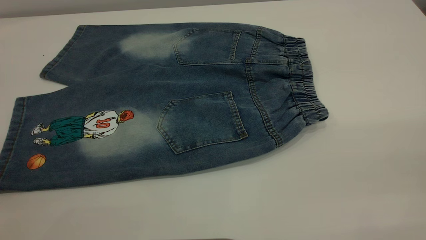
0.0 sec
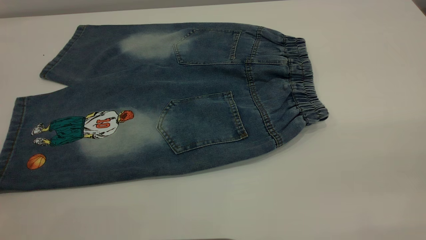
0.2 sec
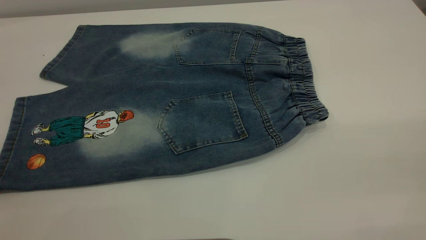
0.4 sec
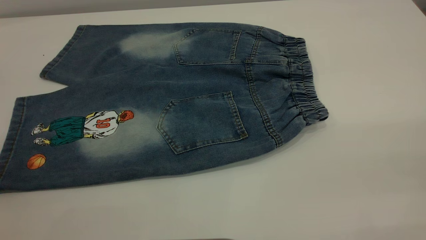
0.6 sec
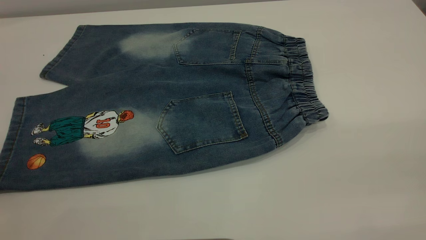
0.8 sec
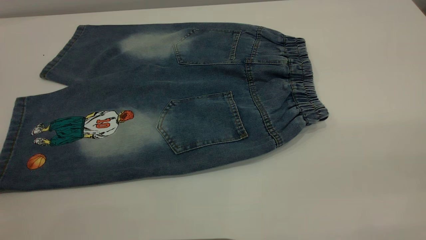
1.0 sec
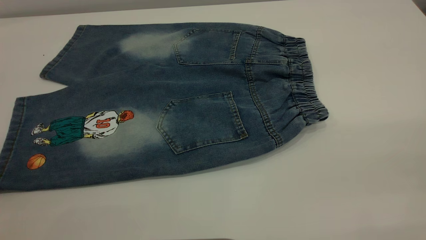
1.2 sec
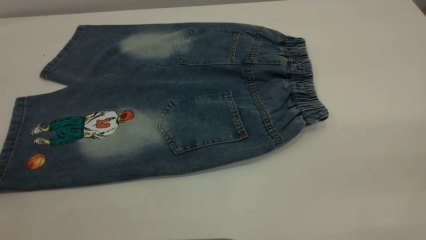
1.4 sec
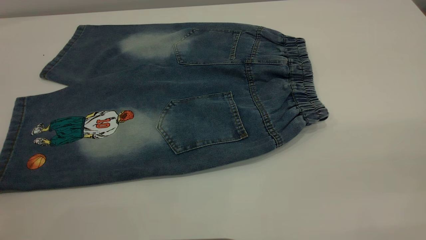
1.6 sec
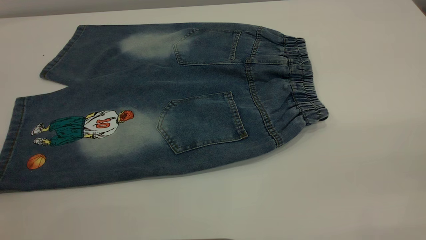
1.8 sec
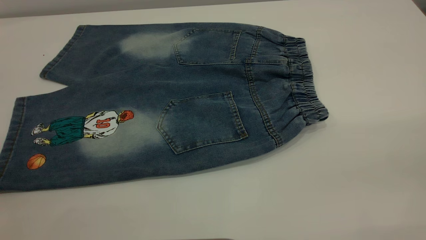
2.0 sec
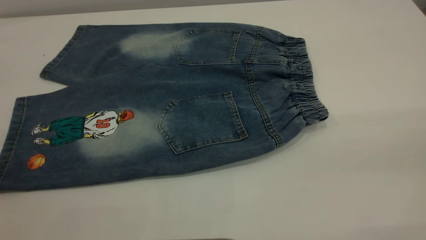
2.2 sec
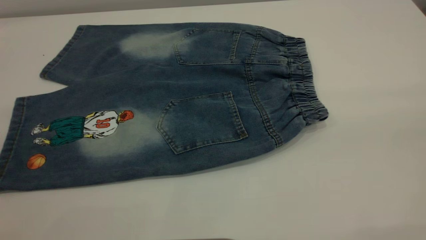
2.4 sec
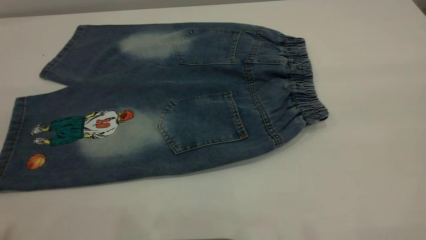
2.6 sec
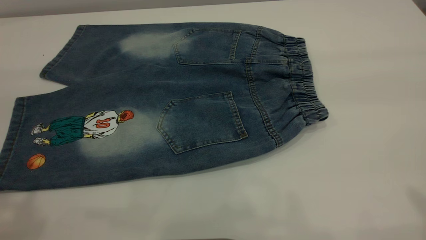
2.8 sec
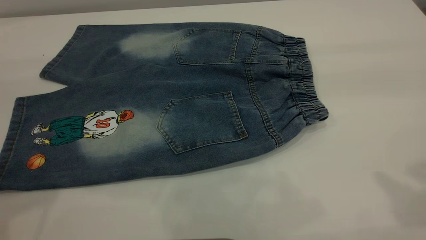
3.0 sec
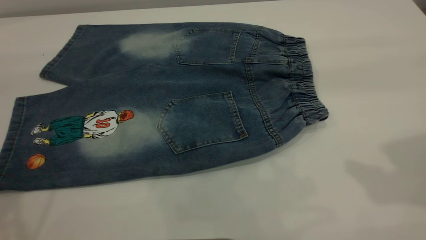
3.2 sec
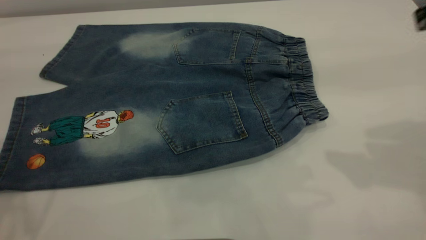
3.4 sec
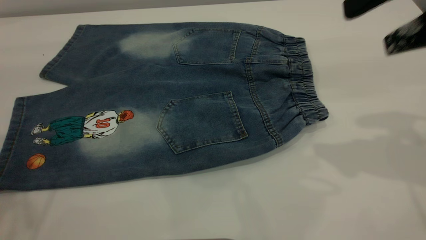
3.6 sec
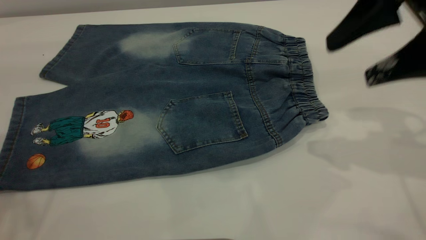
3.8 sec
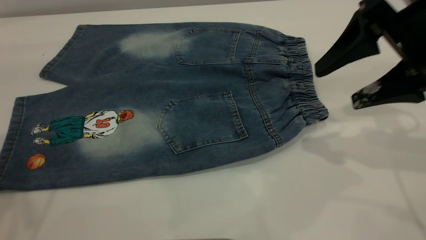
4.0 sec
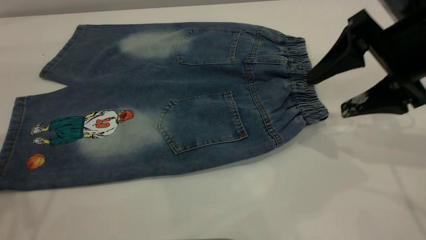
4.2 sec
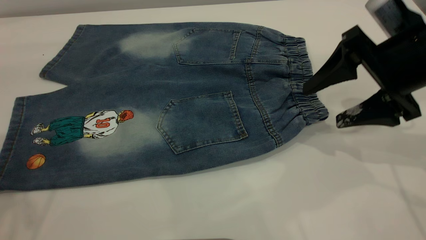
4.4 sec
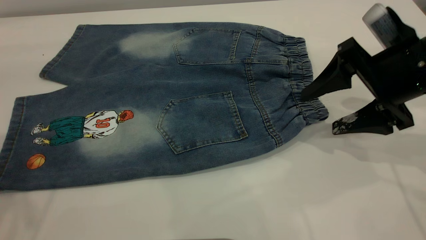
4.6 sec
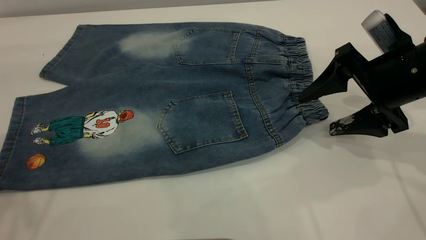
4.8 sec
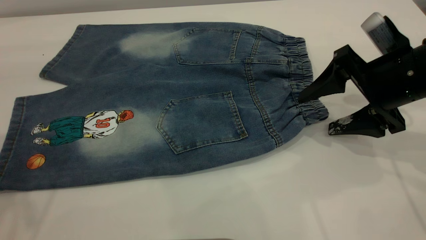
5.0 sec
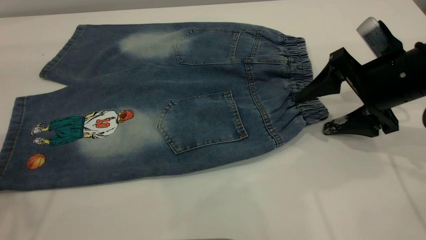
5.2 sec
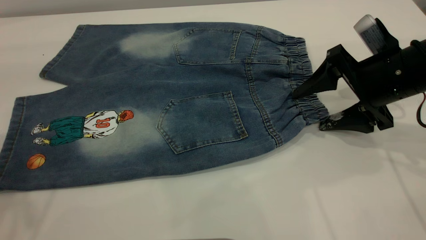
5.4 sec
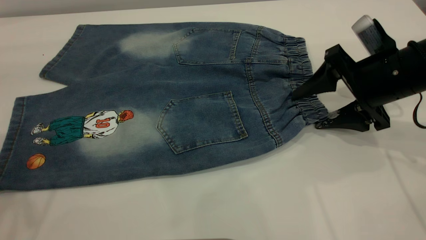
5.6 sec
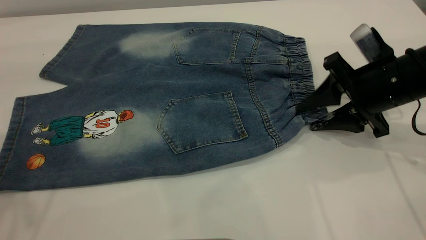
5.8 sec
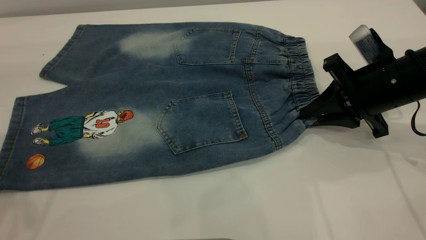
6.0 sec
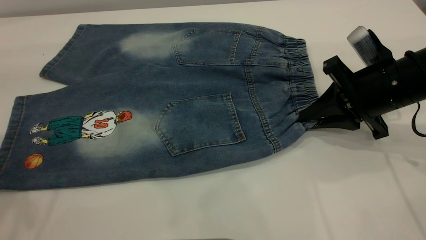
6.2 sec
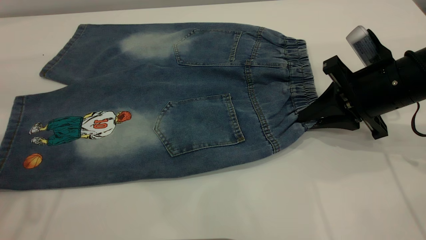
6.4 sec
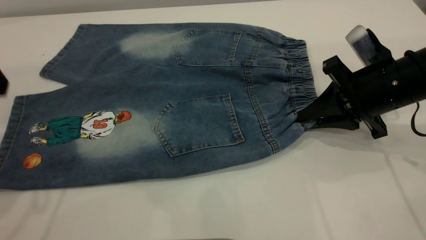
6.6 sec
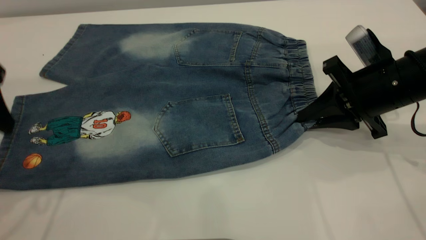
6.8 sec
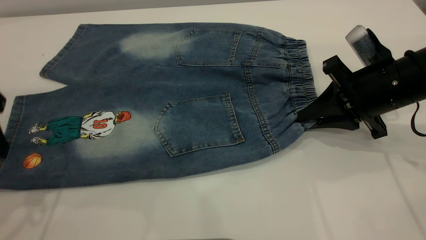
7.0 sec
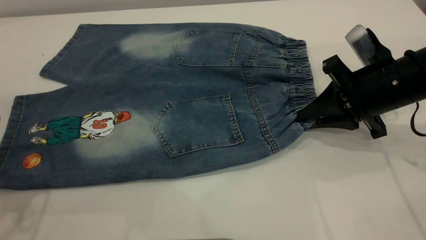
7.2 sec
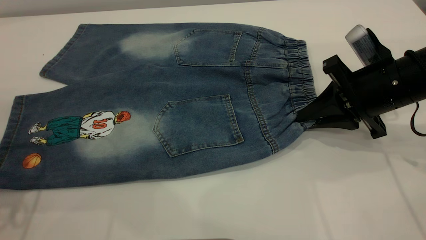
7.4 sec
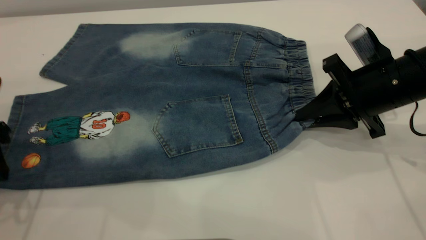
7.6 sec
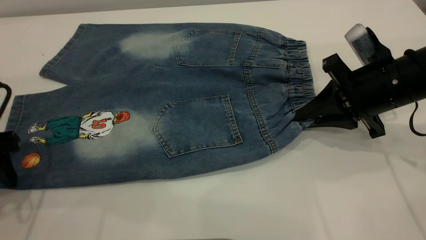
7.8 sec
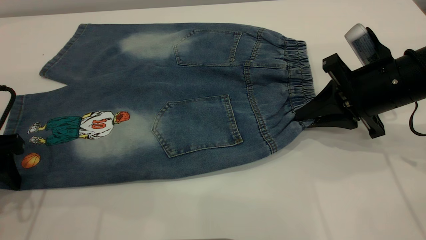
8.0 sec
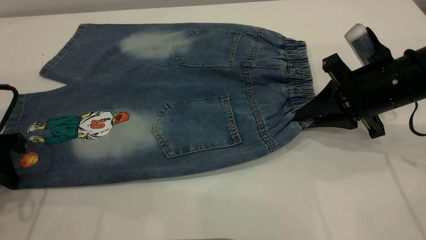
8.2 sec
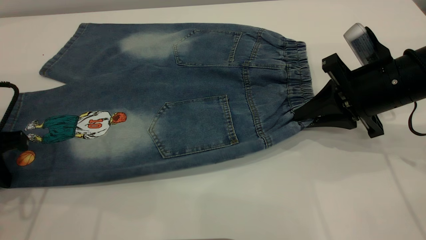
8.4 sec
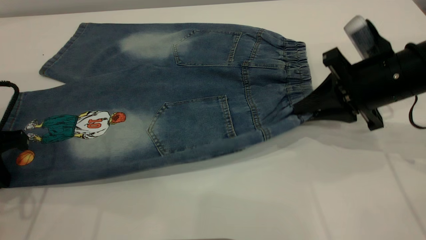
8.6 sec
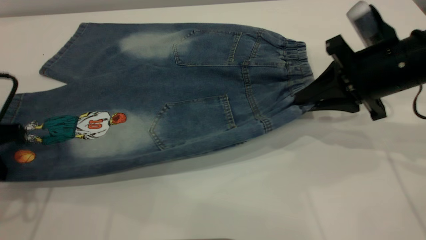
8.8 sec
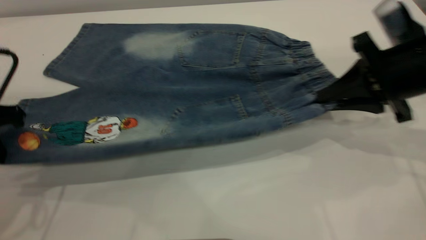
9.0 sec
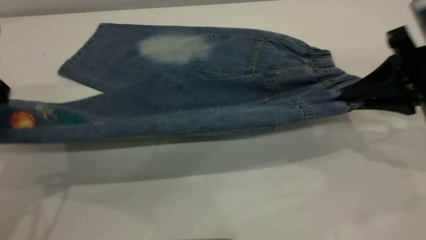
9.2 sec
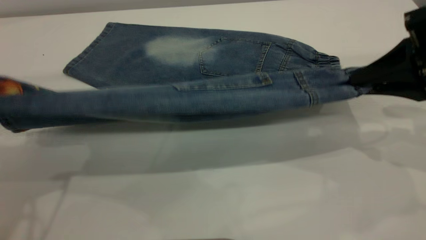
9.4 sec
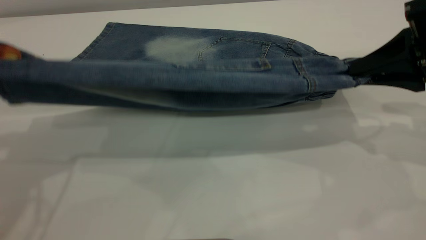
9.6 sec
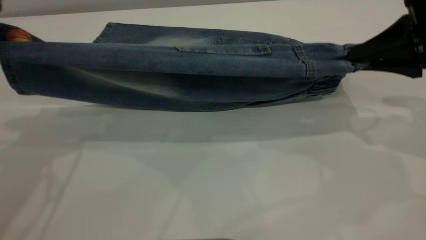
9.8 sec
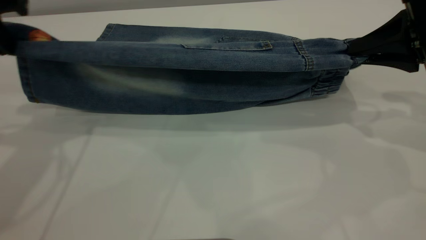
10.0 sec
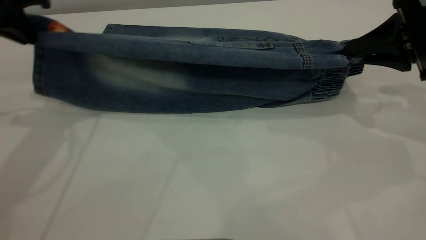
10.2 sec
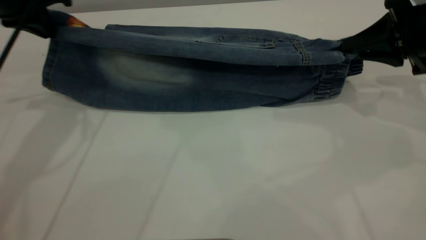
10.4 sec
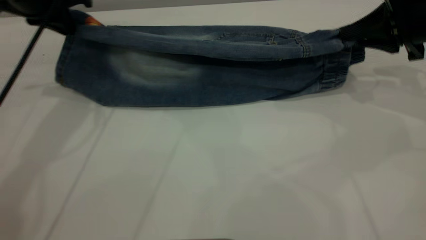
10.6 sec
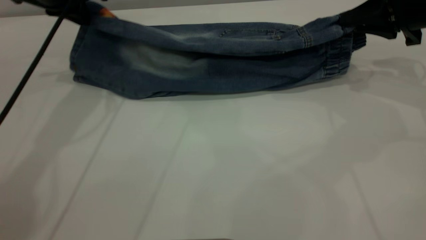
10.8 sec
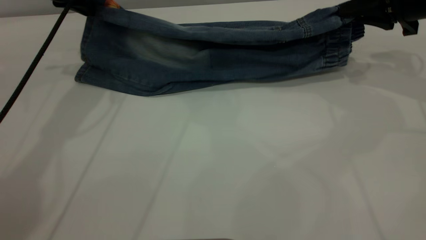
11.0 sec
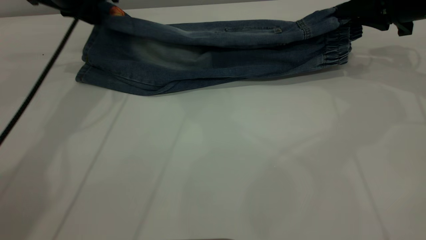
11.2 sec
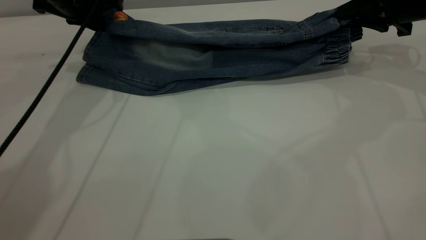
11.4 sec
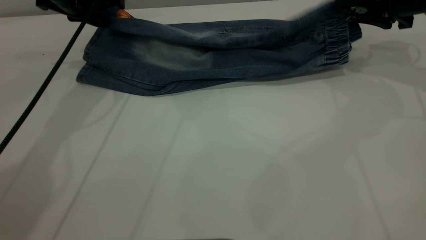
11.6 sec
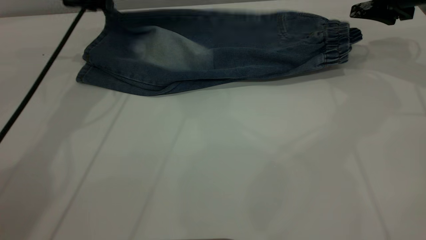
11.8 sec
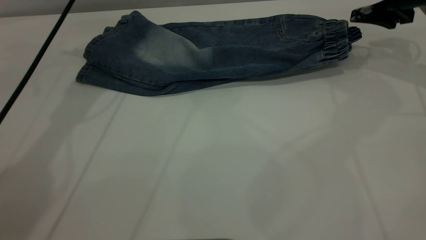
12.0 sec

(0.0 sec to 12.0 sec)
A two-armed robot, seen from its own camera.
Step, 0.0 sec - 11.8 sec: Fold the bottom of the pants upward.
0.0 sec - 1.6 sec: Both grippers stay about where they are.
3.0 sec - 4.4 sec: The right gripper goes about 25 cm downward and forward, while the left gripper is displaced forward by approximately 5 cm.
4.4 sec - 6.0 sec: The right gripper travels downward by approximately 5 cm, and closes its fingers.
6.0 sec - 7.6 sec: The left gripper is displaced downward by roughly 20 cm.
7.6 sec - 9.0 sec: The right gripper changes place by some 5 cm, while the left gripper closes up.
9.0 sec - 10.4 sec: The left gripper goes some 15 cm forward. The right gripper ends up about 5 cm from where it was.
10.4 sec - 12.0 sec: The grippers both shift forward by about 10 cm. The left gripper opens up. Meanwhile the right gripper opens.

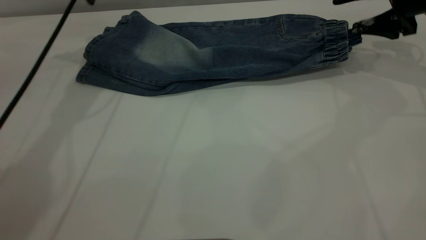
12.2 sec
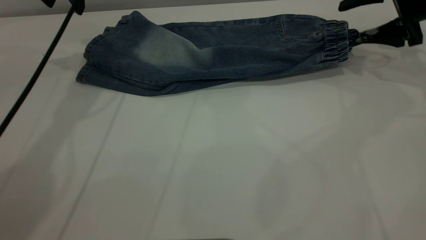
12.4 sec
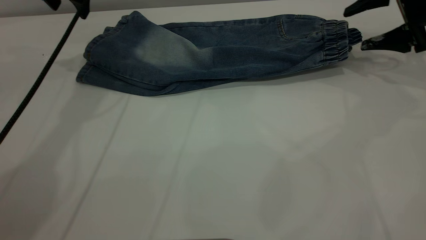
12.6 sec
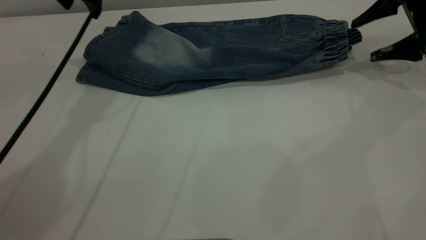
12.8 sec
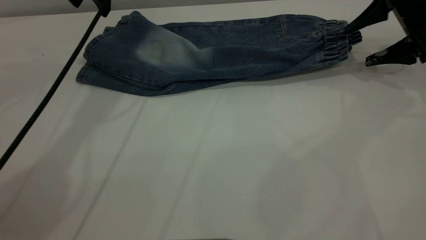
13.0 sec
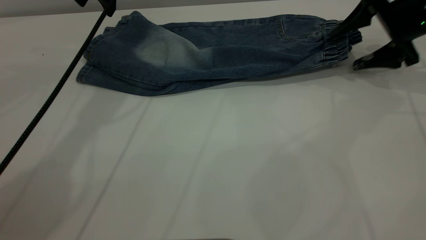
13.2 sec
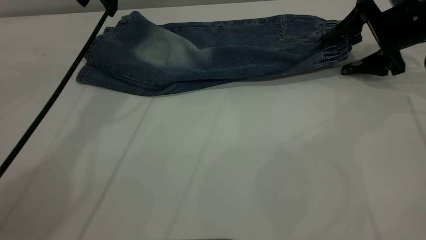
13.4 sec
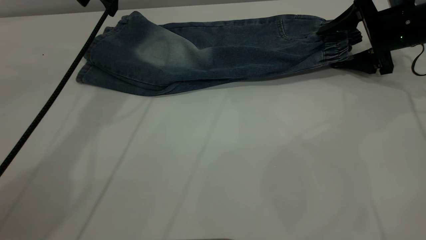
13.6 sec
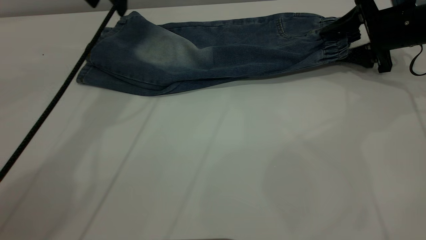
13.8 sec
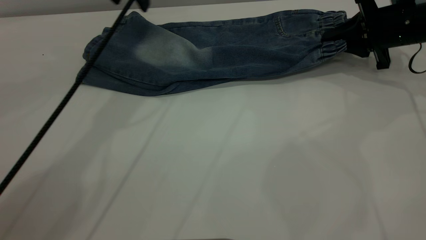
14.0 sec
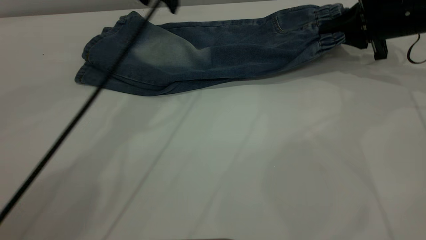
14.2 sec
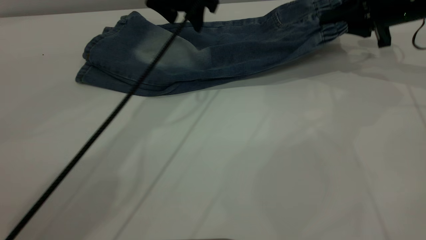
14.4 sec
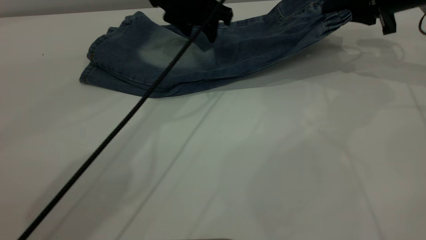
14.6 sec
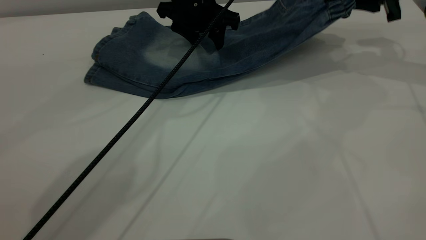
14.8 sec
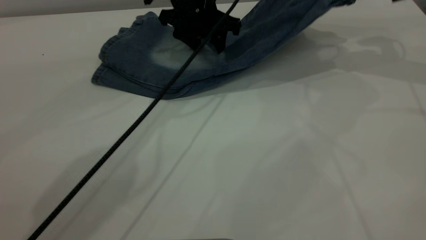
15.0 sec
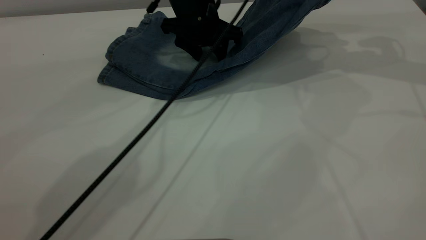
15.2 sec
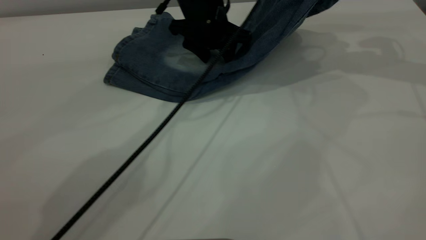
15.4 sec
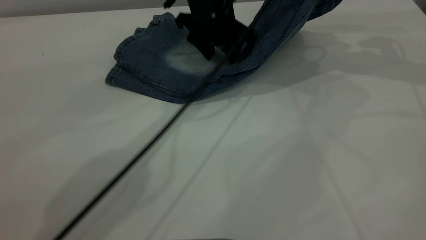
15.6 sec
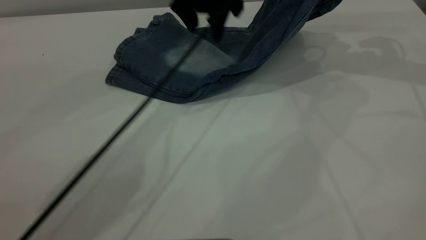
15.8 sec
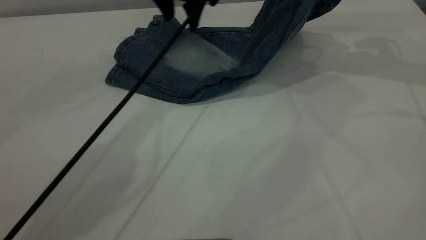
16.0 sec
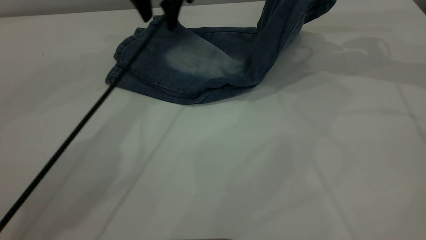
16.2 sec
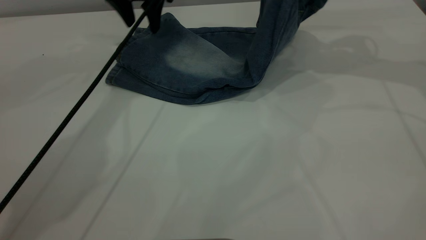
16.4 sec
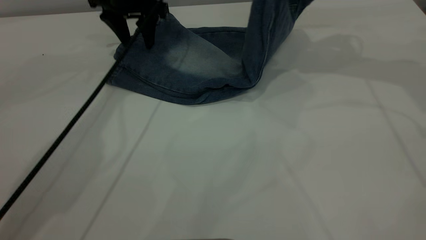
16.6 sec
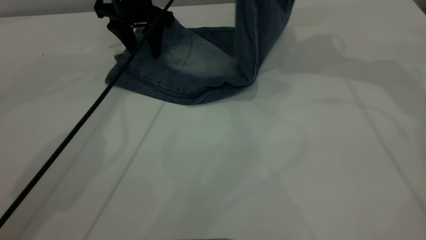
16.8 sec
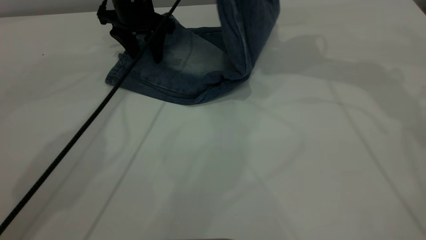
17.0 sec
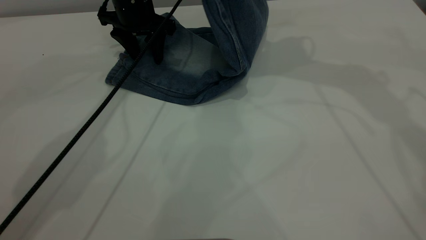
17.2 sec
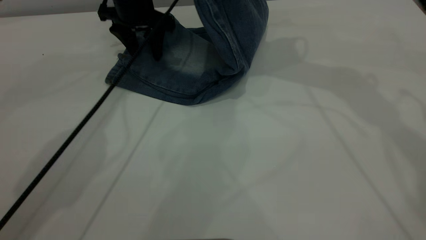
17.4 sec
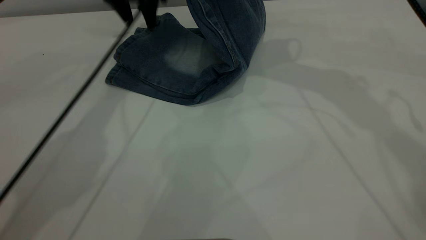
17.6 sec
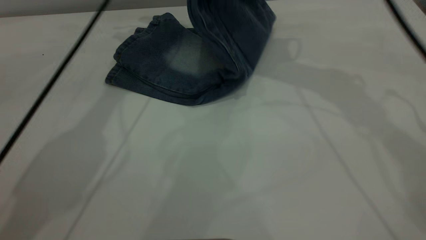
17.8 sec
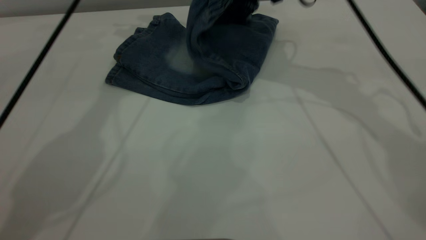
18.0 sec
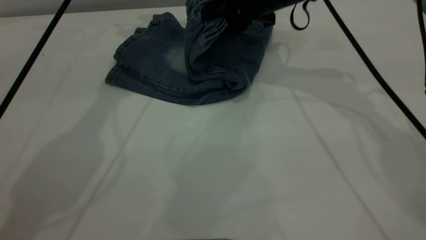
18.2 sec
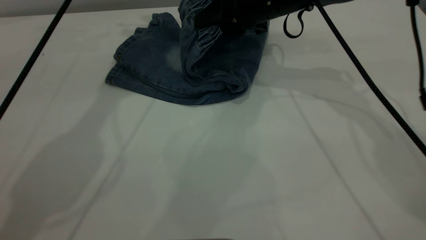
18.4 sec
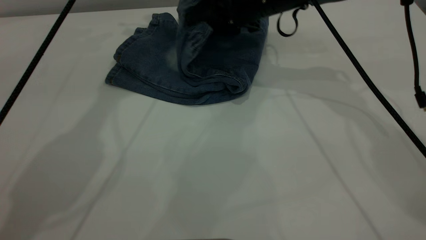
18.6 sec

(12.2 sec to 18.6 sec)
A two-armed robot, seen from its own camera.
12.2 sec - 13.8 sec: The right gripper goes roughly 5 cm downward, and closes. The left gripper travels to the right by about 5 cm.
13.8 sec - 15.4 sec: The right gripper travels upward by about 15 cm, and closes up; the left gripper moves to the right and downward, approximately 20 cm.
15.4 sec - 17.0 sec: The right gripper goes about 15 cm to the left. Meanwhile the left gripper travels to the left and forward by roughly 15 cm.
17.0 sec - 18.6 sec: The left gripper travels upward by approximately 20 cm. Meanwhile the right gripper heads downward and to the left, covering roughly 15 cm, and opens up.
